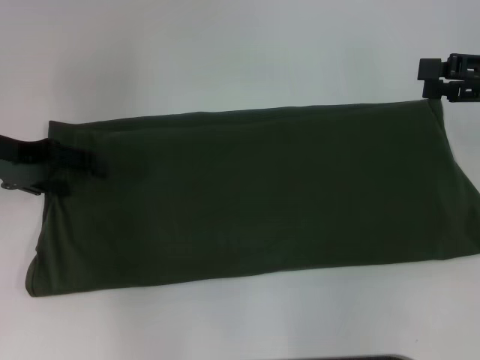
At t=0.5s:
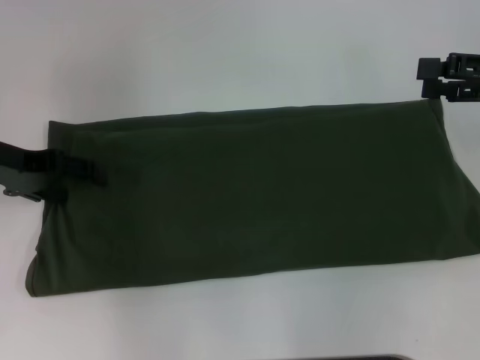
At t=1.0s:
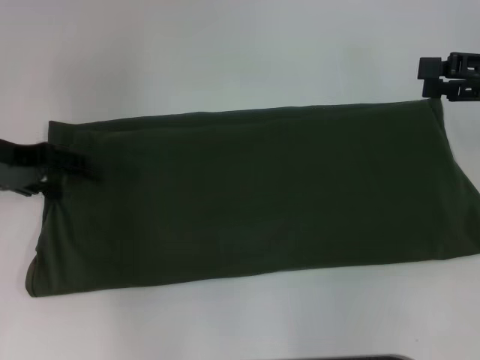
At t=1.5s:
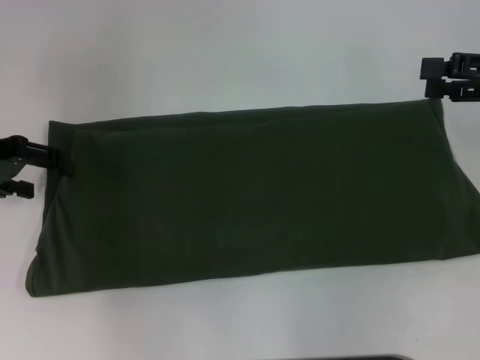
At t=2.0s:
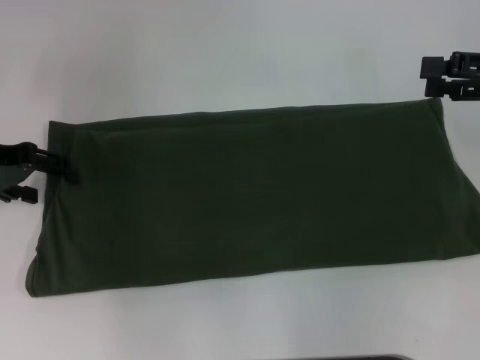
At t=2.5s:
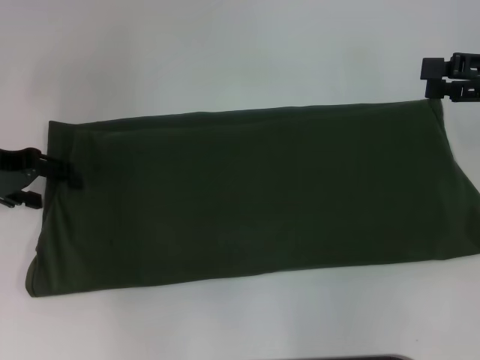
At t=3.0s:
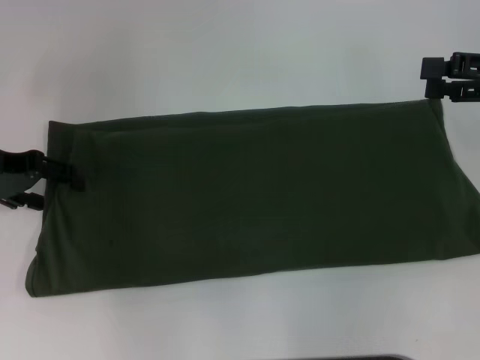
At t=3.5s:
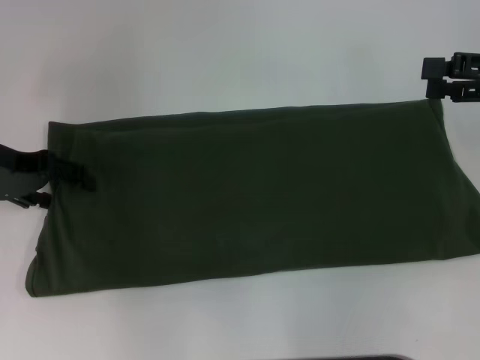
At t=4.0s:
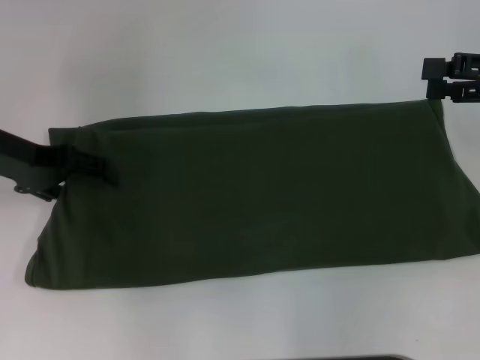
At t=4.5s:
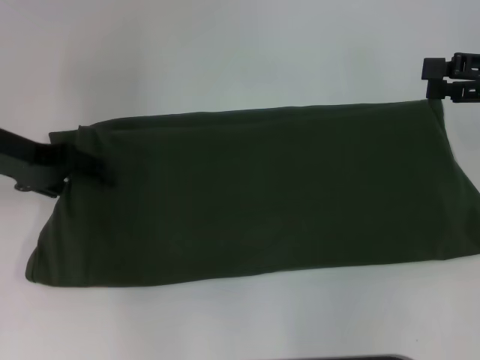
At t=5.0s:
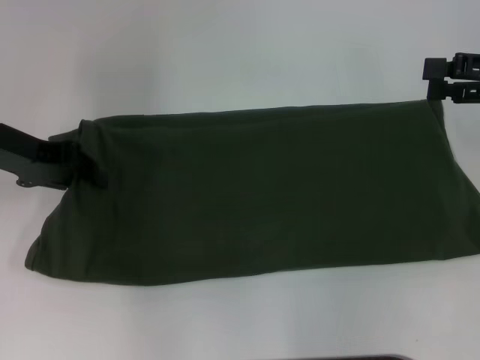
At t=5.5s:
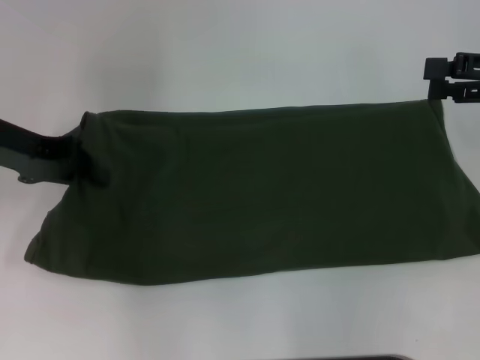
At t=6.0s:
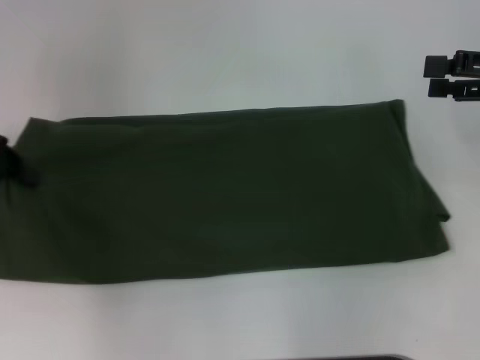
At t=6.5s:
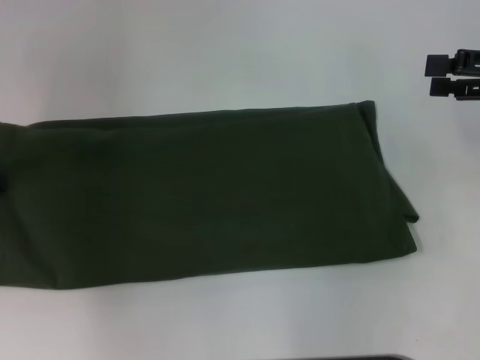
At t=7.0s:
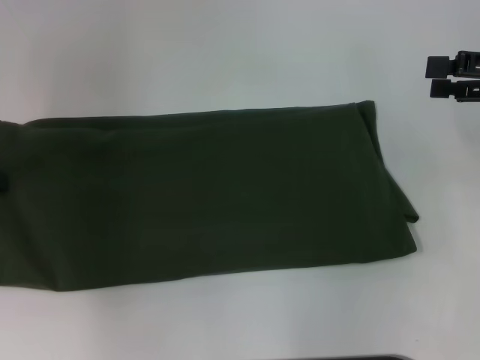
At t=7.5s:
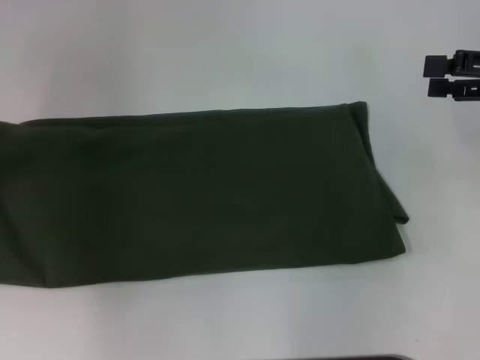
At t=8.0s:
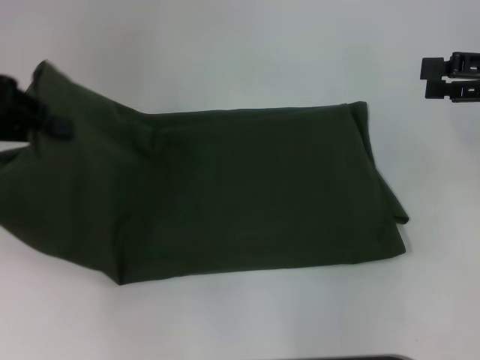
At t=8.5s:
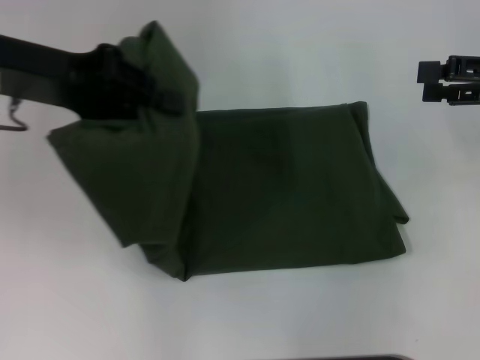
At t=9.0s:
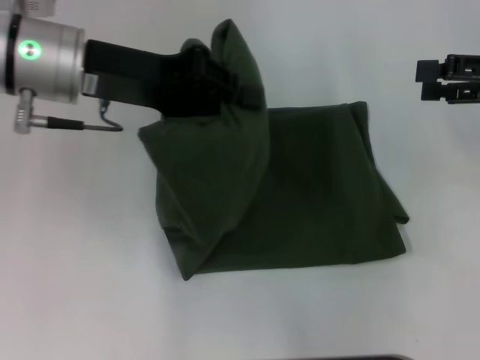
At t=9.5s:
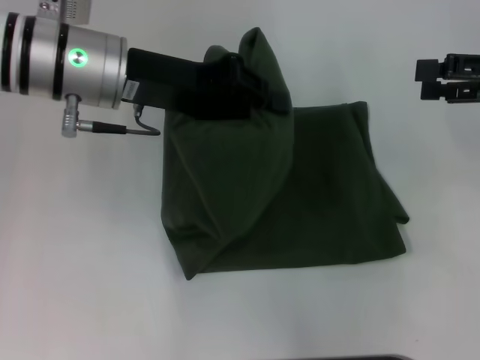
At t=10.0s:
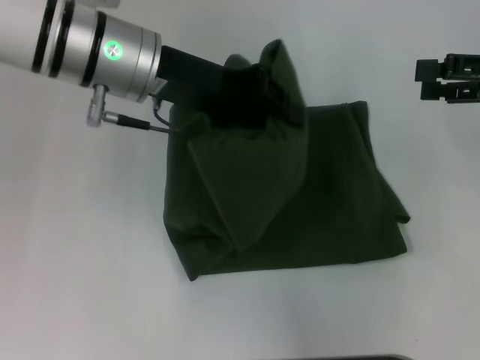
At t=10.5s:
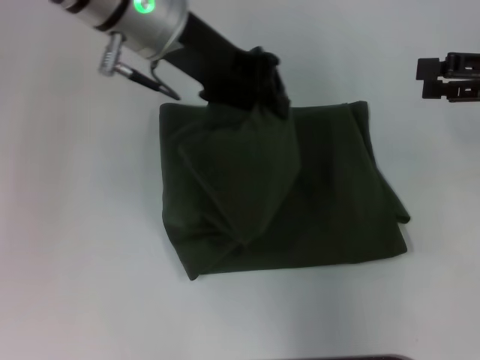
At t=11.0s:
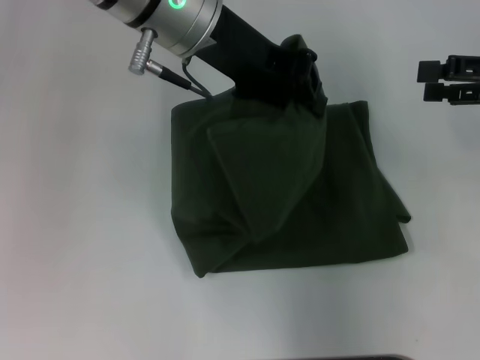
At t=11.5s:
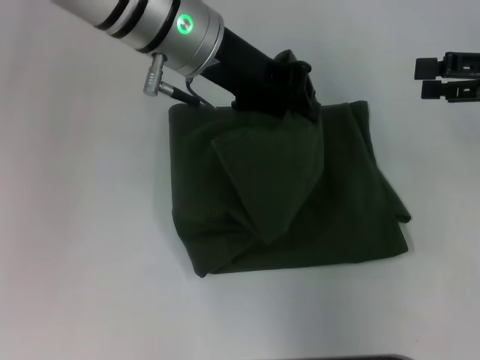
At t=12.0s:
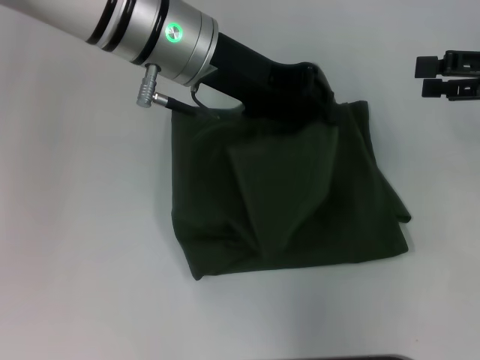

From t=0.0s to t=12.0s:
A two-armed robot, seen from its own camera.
From t=0.0s to t=4.0s: There are only small adjustments of the grippers.
From t=4.0s to t=6.0s: The left gripper goes roughly 5 cm to the left, and closes up.
From t=6.0s to t=8.0s: The left gripper shifts some 5 cm upward.
From t=8.0s to t=10.0s: The left gripper is displaced to the right by roughly 20 cm.

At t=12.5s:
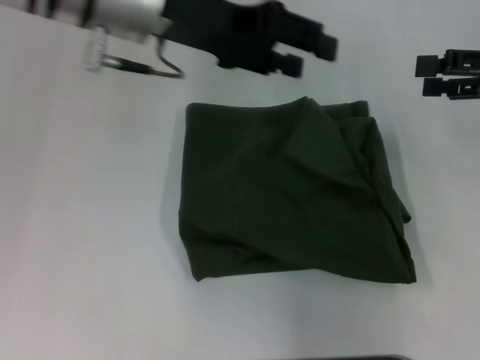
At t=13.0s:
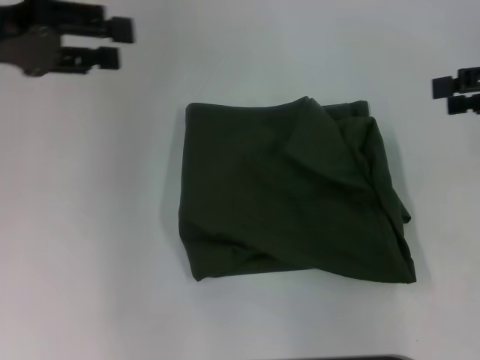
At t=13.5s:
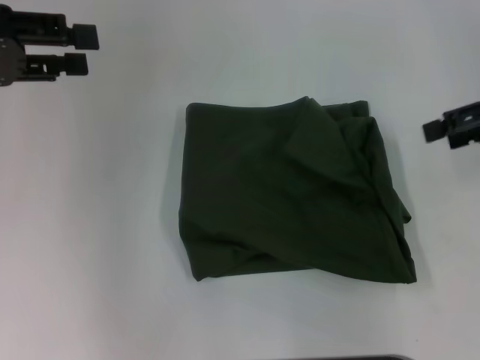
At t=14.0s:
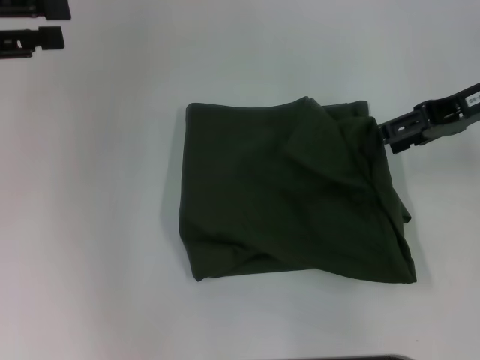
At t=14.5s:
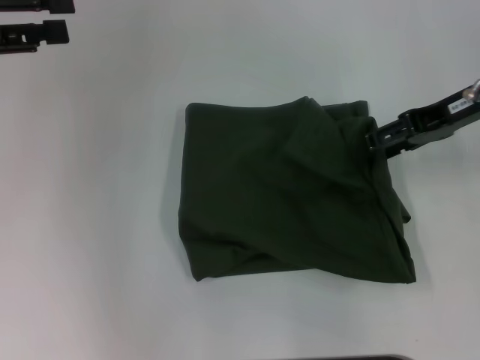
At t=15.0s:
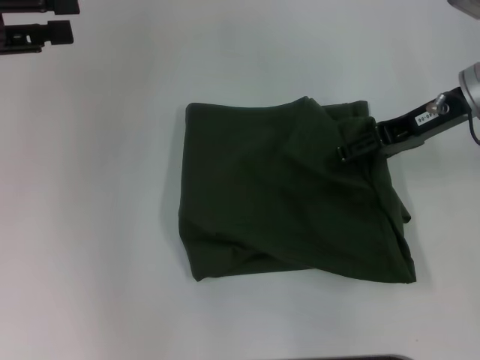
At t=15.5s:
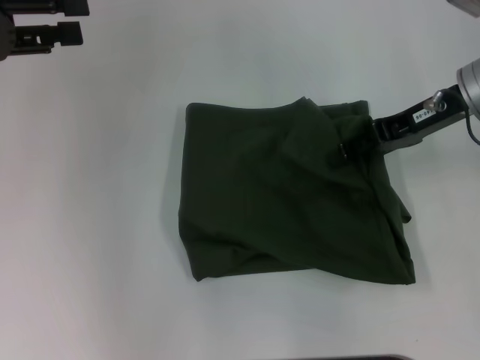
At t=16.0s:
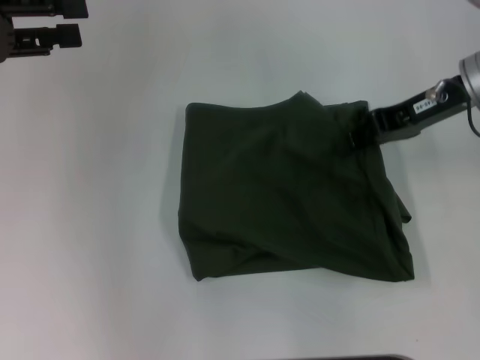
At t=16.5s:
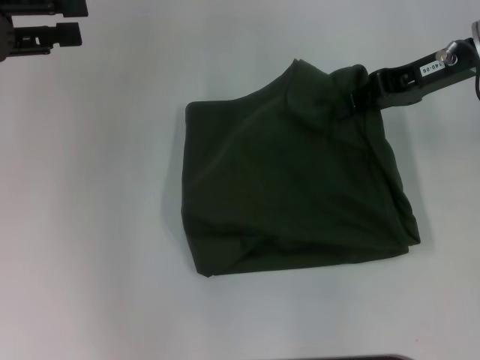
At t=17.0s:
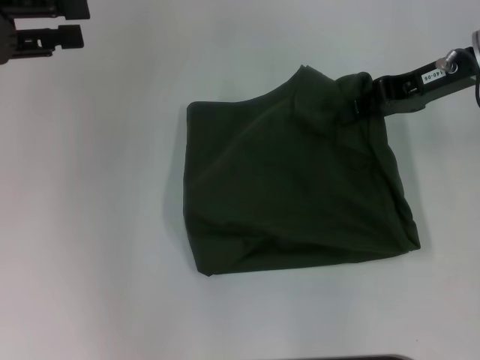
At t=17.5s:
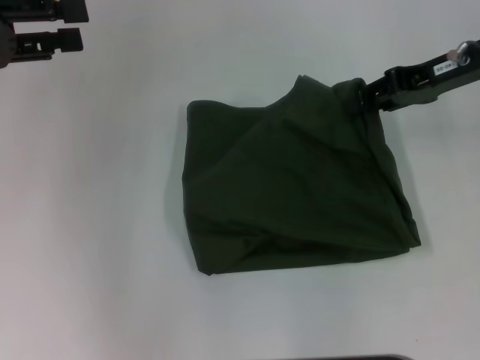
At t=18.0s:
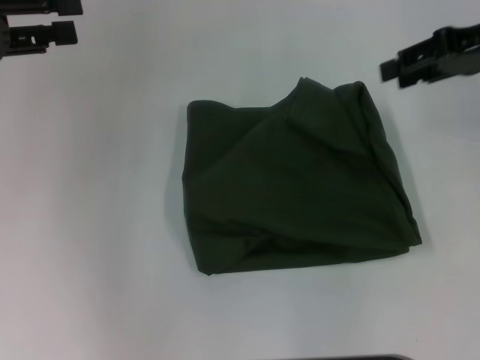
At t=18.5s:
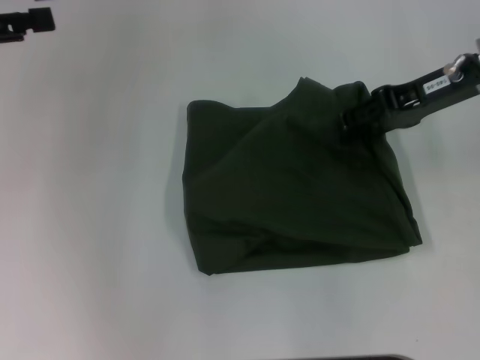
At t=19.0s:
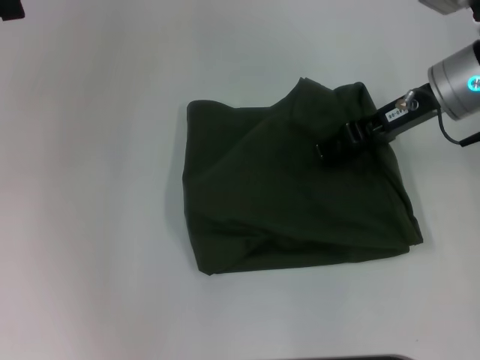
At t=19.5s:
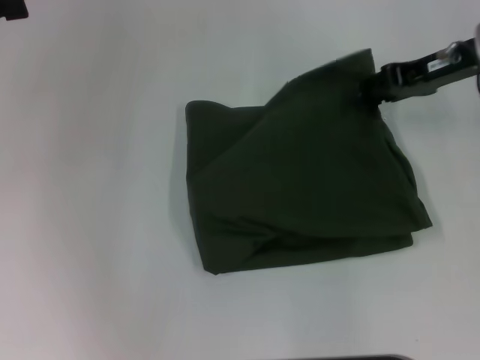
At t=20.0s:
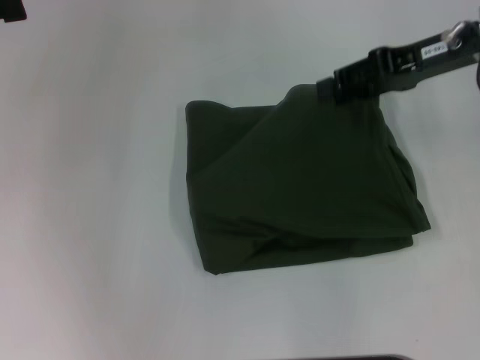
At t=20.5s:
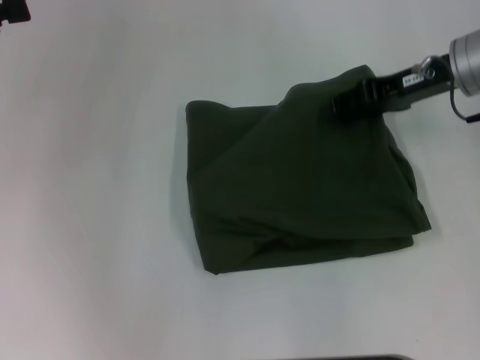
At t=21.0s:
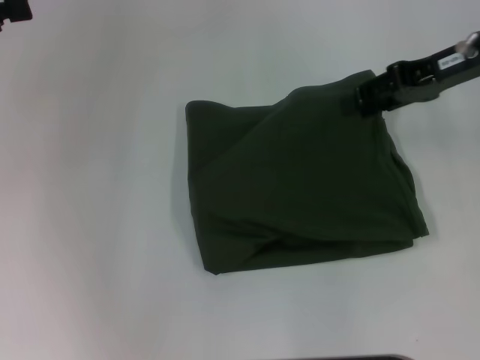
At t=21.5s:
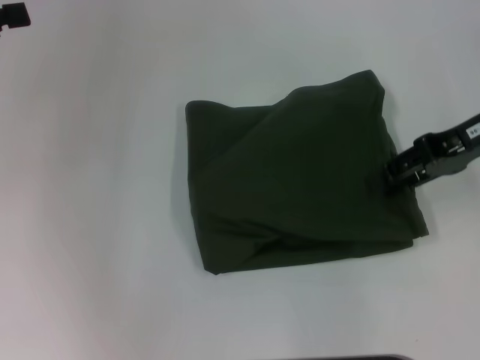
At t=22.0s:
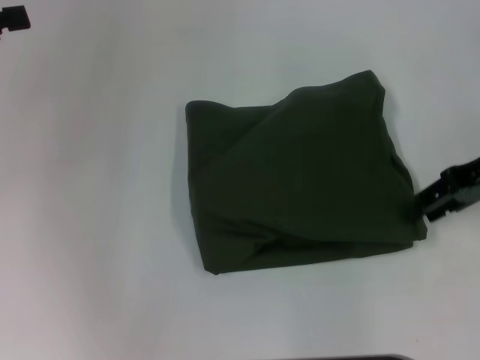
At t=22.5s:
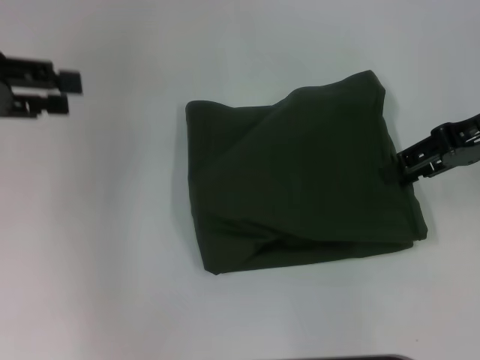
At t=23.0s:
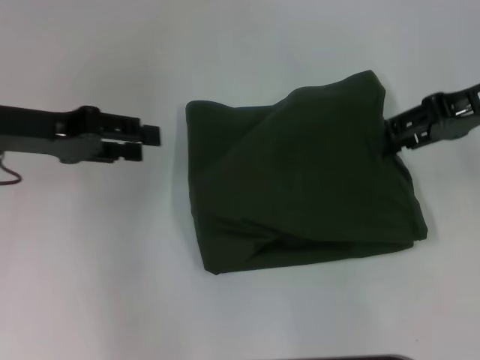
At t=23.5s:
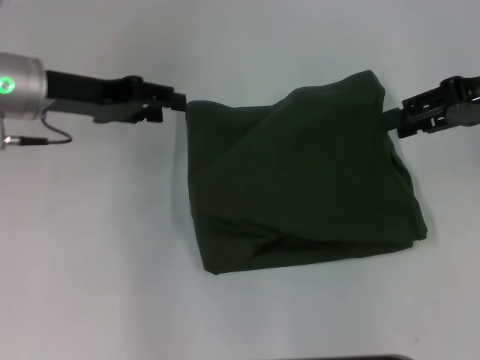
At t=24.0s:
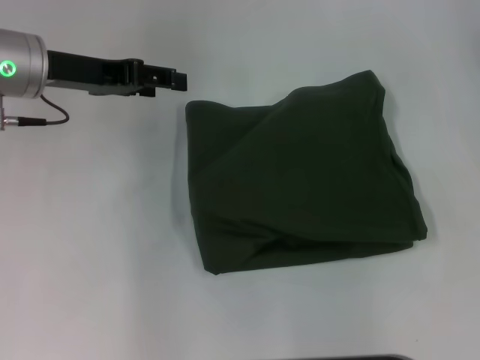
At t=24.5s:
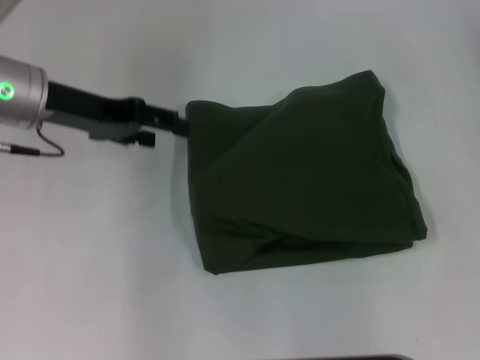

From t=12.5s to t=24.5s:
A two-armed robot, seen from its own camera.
Step, from t=12.5s to t=15.0s: Fold the clothes with your left hand.
From t=12.5s to t=14.5s: The right gripper moves to the left, some 10 cm; the left gripper goes approximately 20 cm to the left.
From t=14.5s to t=16.5s: The right gripper closes its fingers.
From t=16.5s to t=18.5s: The right gripper opens up.
From t=18.5s to t=20.5s: There are only small adjustments of the grippers.
From t=20.5s to t=22.5s: The right gripper changes place by about 5 cm.
From t=22.5s to t=24.5s: The left gripper goes about 10 cm to the right and downward. Meanwhile the right gripper heads upward, covering about 5 cm, and opens up.

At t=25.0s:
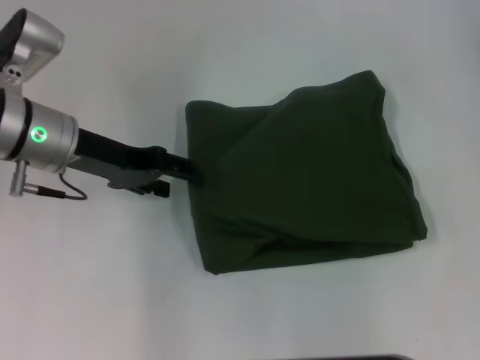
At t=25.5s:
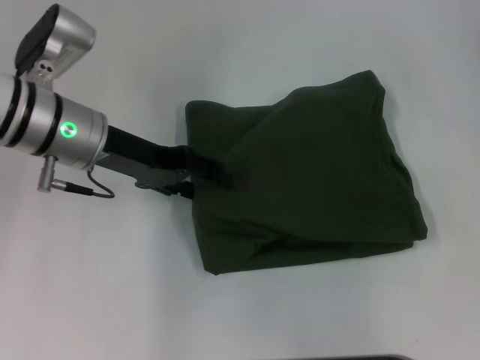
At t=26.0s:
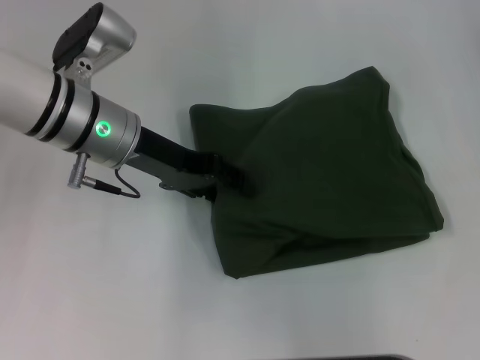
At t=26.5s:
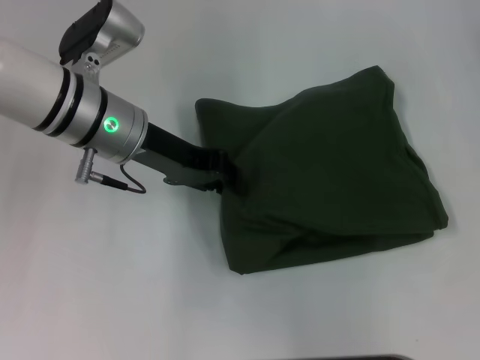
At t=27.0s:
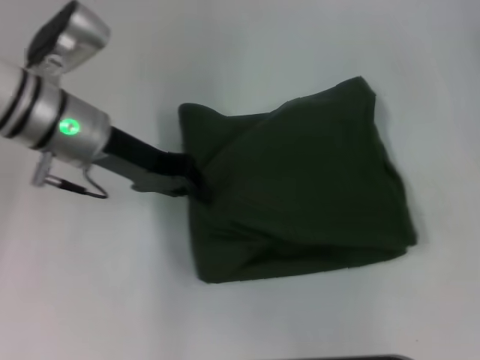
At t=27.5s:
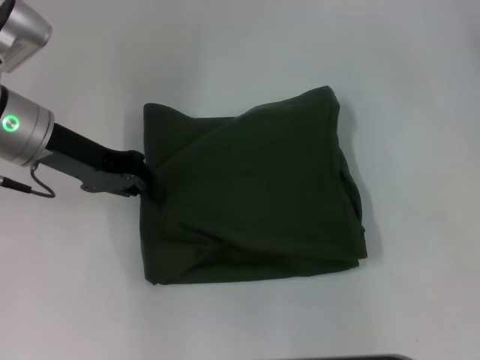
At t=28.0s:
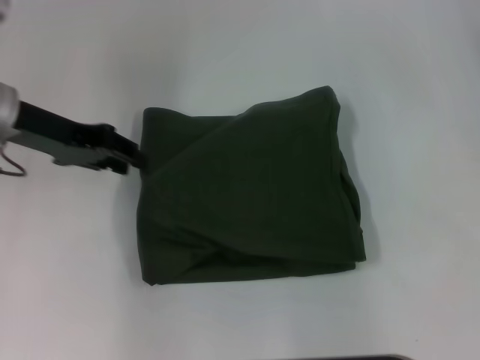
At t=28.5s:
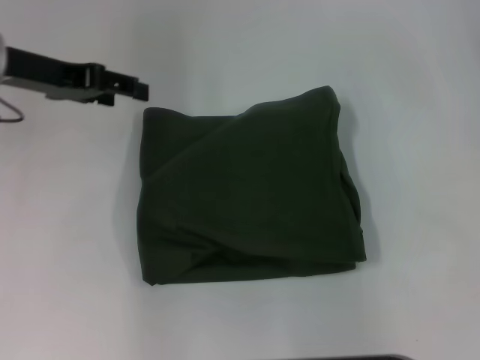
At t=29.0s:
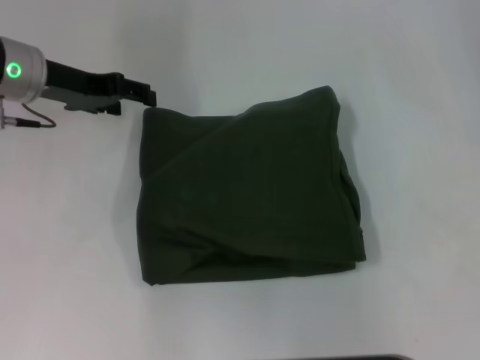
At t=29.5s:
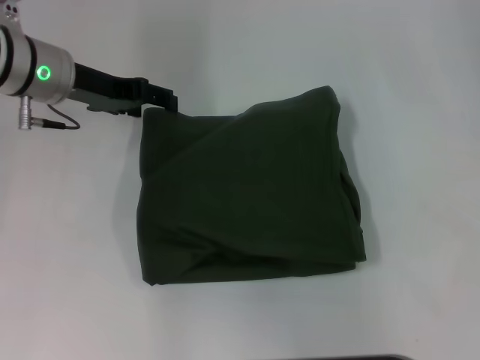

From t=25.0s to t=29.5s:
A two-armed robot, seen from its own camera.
From t=25.0s to t=27.0s: The left gripper closes up.
From t=27.0s to t=29.5s: The left gripper is displaced forward by some 5 cm, and opens.
